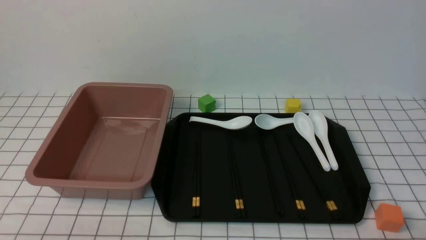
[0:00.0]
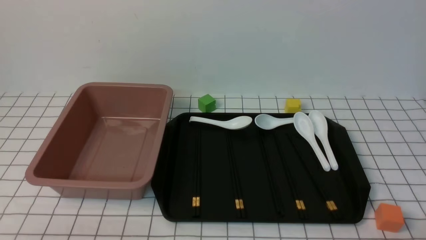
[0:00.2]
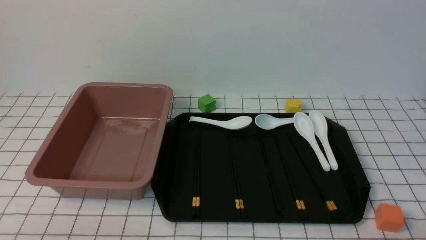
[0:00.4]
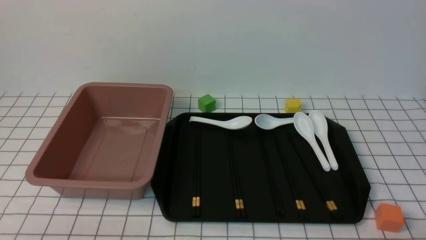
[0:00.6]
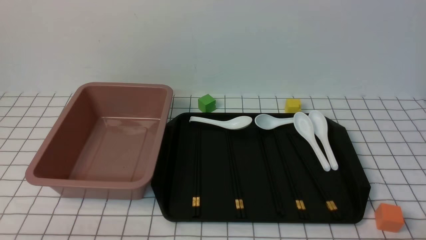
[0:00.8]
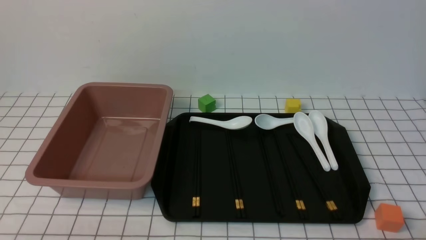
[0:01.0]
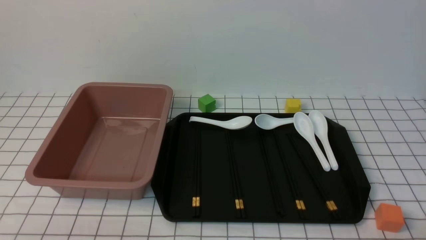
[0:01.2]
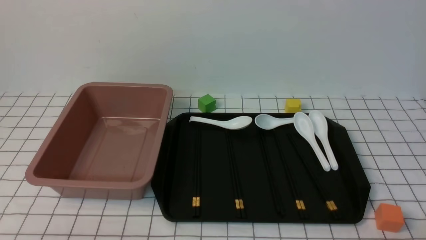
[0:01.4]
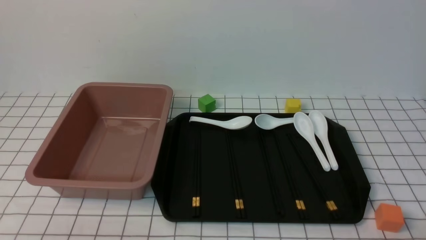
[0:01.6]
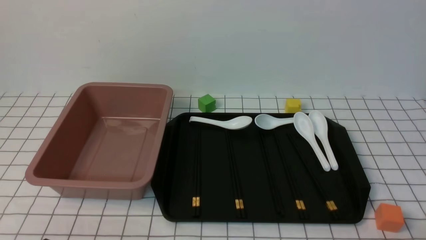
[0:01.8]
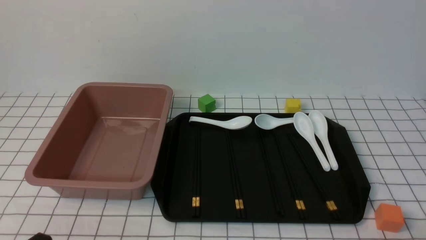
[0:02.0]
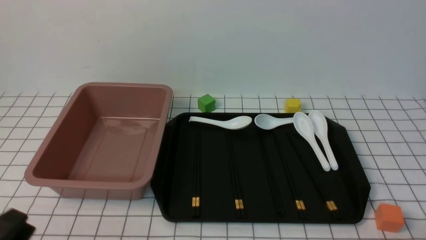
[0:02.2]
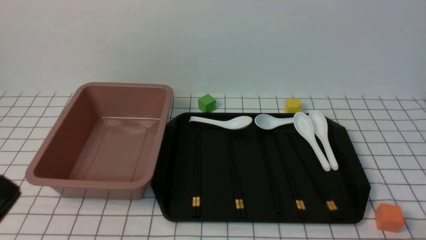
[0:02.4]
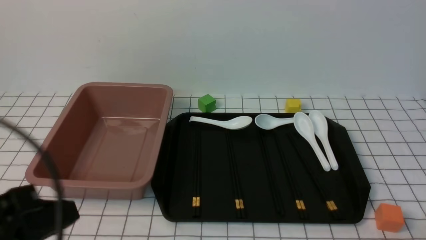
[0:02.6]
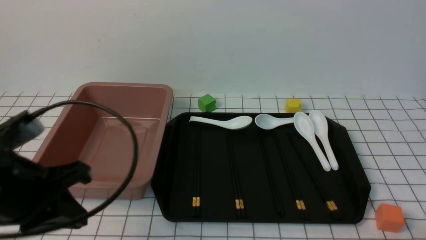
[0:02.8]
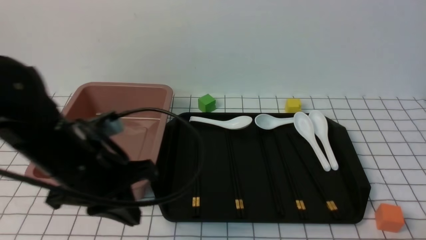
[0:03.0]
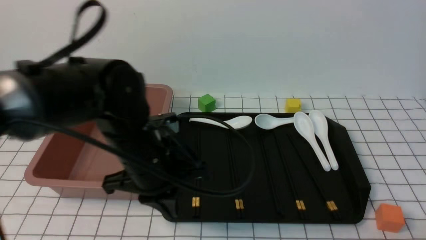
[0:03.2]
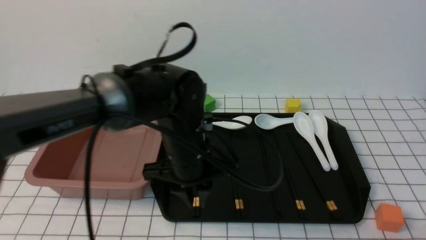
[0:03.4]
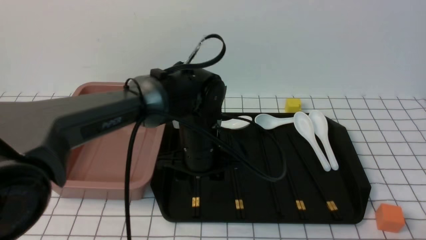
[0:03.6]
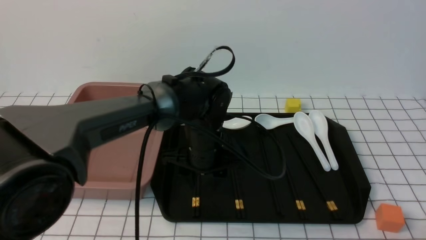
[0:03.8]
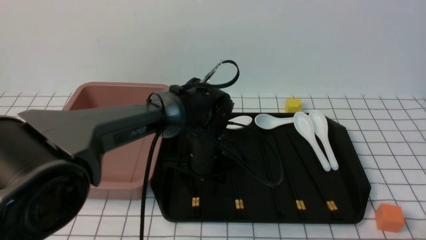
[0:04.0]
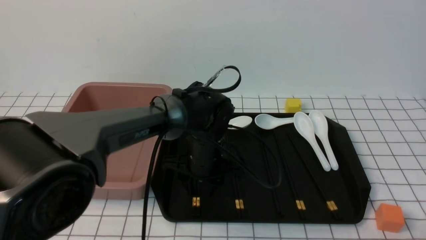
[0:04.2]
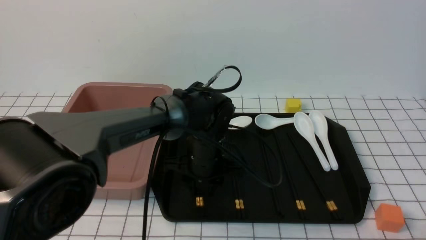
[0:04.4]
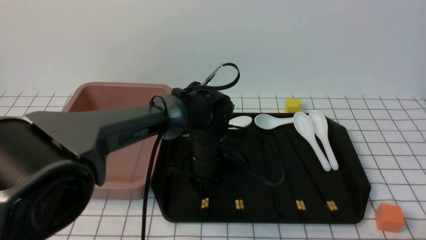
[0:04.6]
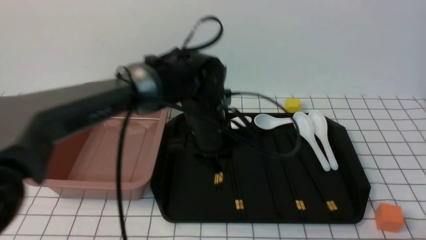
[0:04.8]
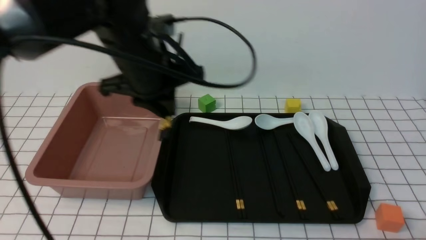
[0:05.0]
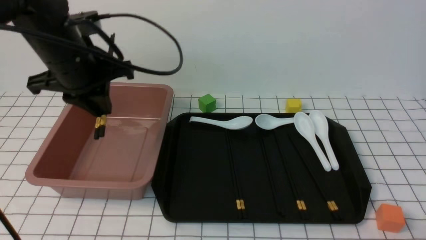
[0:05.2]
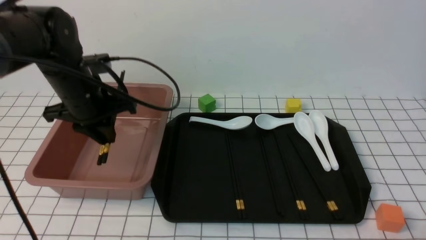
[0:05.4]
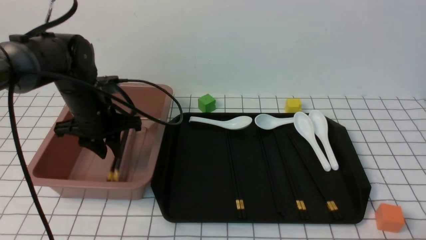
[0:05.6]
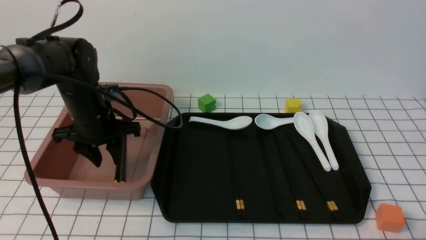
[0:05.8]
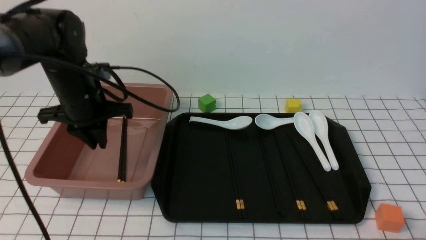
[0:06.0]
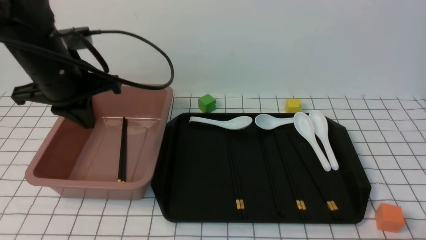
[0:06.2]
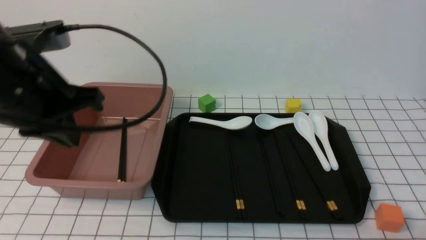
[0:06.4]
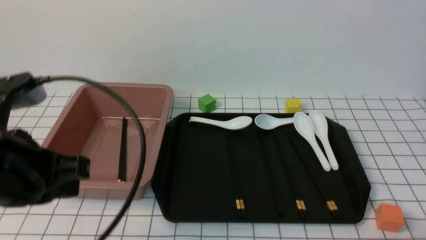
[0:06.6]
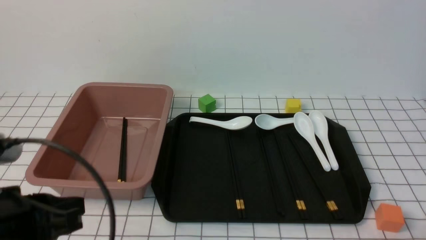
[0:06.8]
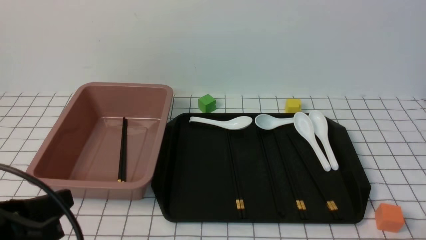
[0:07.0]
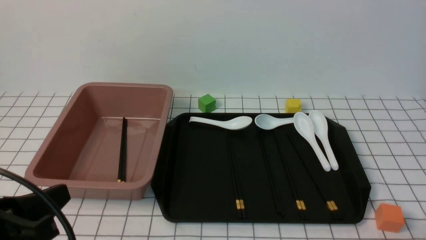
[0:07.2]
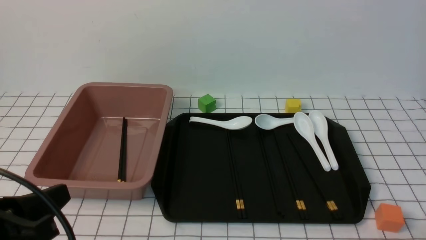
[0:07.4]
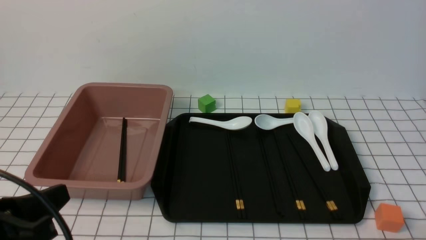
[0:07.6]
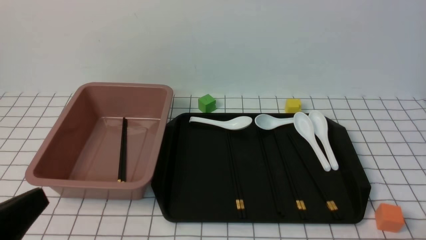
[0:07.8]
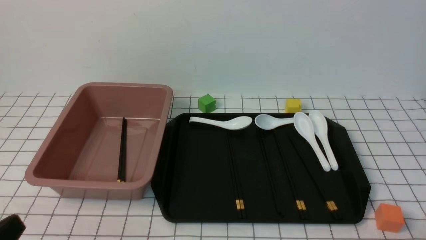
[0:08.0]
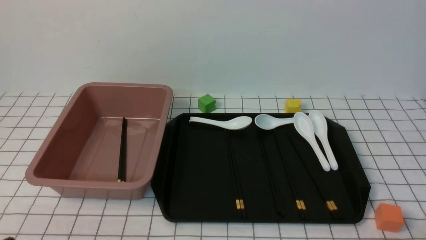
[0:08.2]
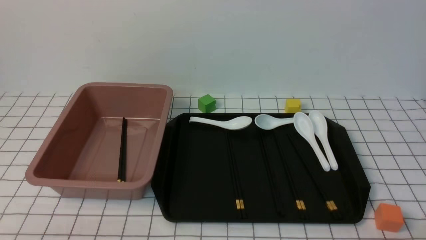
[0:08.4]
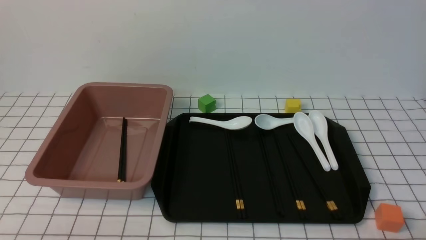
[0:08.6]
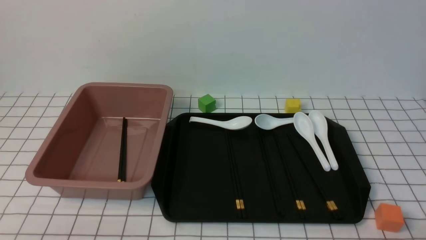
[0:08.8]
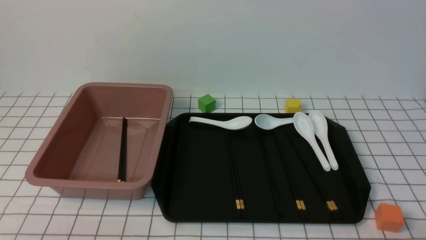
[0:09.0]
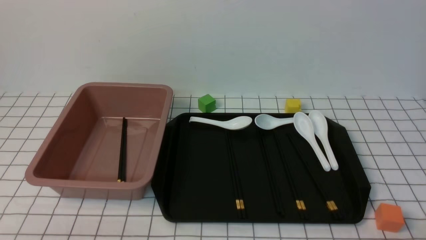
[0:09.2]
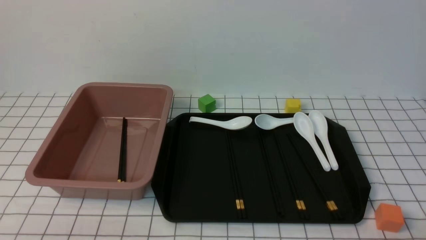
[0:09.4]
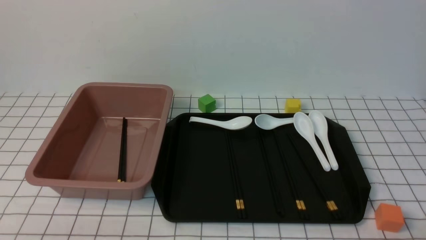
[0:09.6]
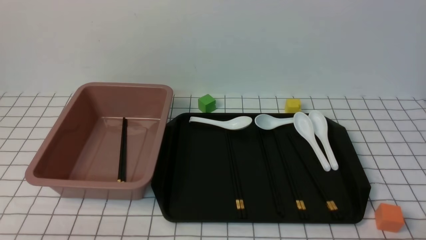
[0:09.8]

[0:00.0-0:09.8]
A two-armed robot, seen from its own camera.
Step, 0.0 to 4.6 s: use the left arm to grab a pair of chopsticks.
Step, 4.8 to 6.0 s: use the left arm to put the chopsticks into the lunch box.
1.4 to 2.8 s: The left gripper is displaced upward and forward by approximately 15 cm, and closes up.
2.8 to 4.2 s: The left gripper moves forward, to the right and downward, some 35 cm, and opens its fingers.
4.2 to 5.6 s: The left gripper shifts some 20 cm to the left and upward, and closes up.
5.6 to 7.0 s: The left gripper goes about 25 cm backward, and closes its fingers.
7.0 to 8.4 s: The left gripper shifts about 10 cm downward and backward.
8.4 to 9.8 s: The two grippers keep their place.

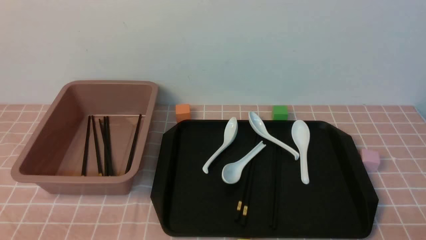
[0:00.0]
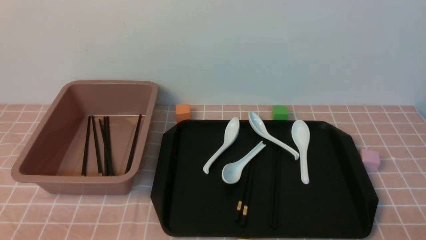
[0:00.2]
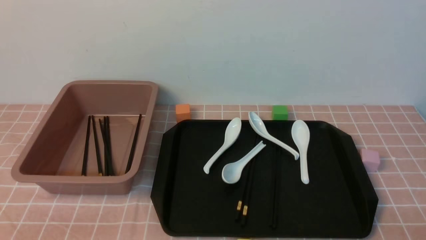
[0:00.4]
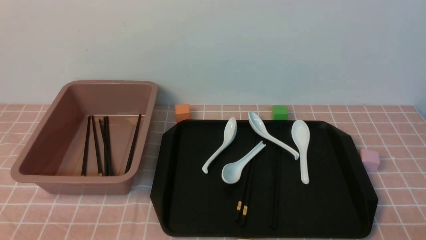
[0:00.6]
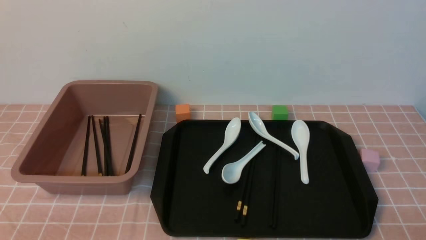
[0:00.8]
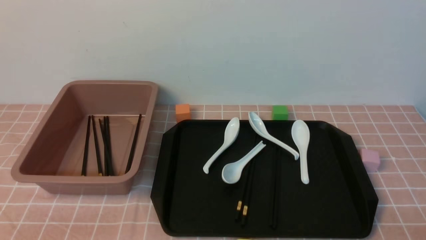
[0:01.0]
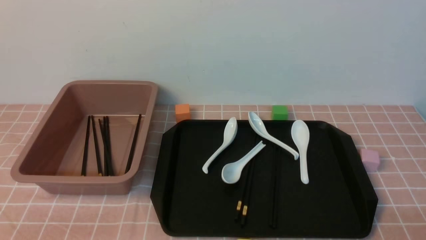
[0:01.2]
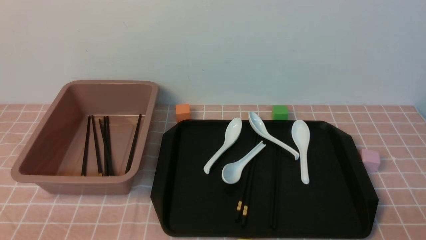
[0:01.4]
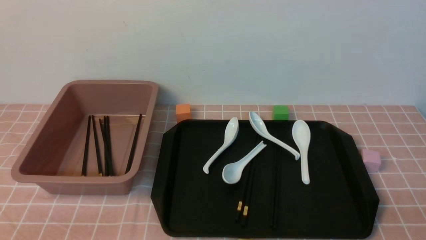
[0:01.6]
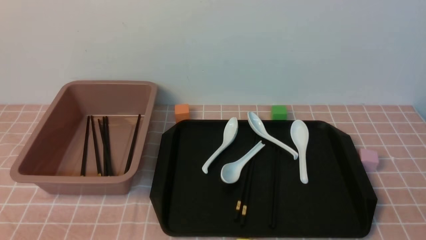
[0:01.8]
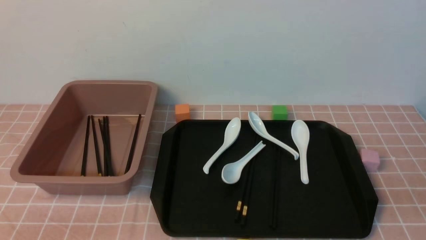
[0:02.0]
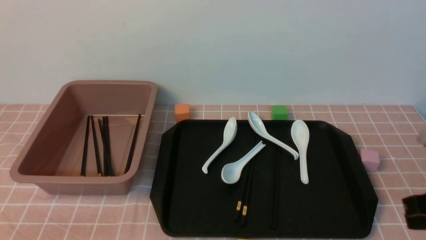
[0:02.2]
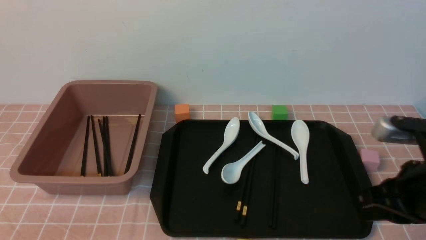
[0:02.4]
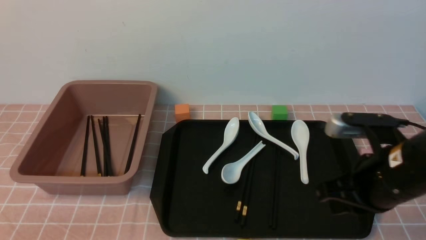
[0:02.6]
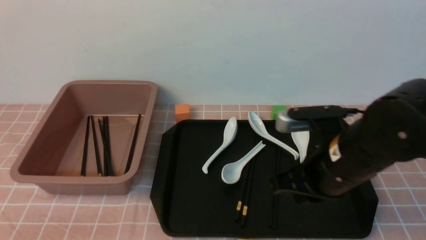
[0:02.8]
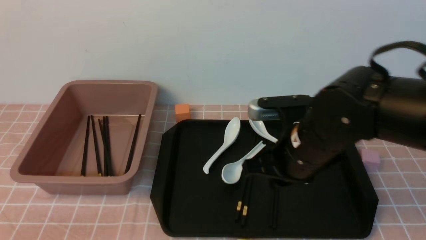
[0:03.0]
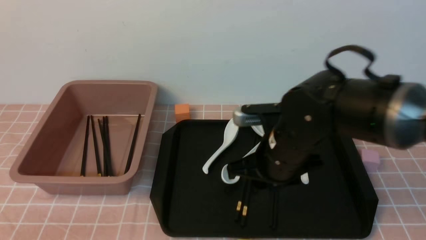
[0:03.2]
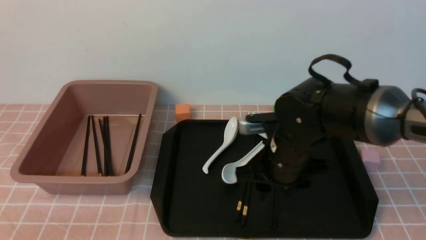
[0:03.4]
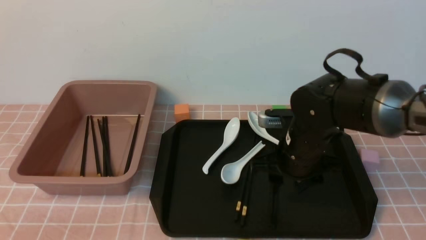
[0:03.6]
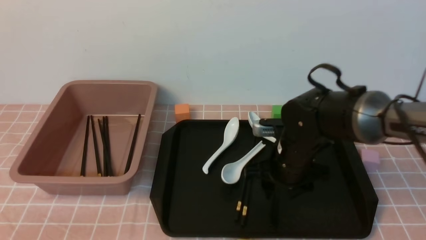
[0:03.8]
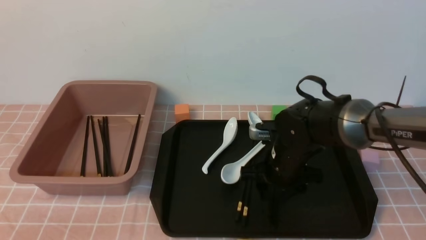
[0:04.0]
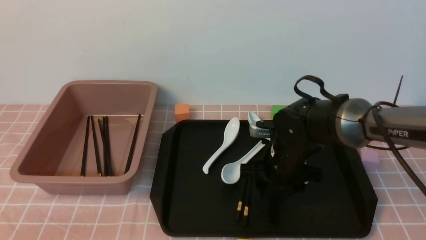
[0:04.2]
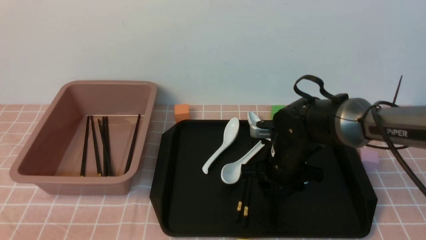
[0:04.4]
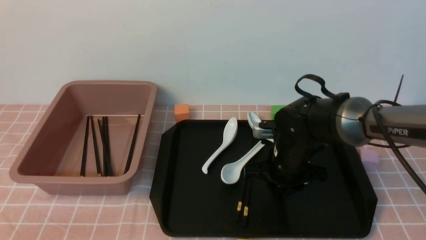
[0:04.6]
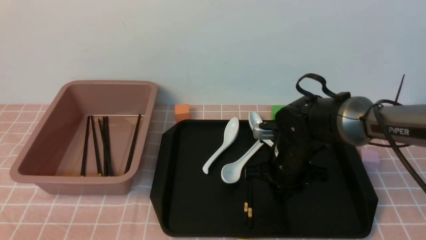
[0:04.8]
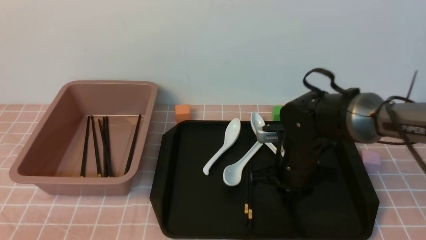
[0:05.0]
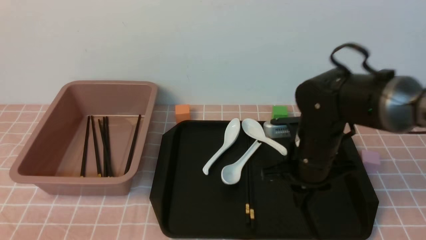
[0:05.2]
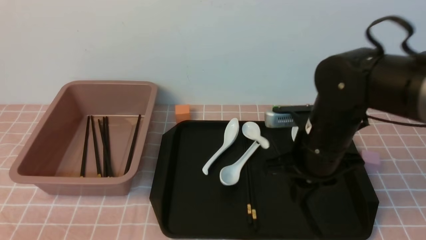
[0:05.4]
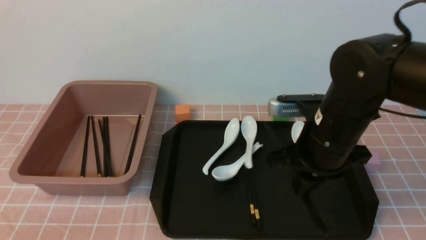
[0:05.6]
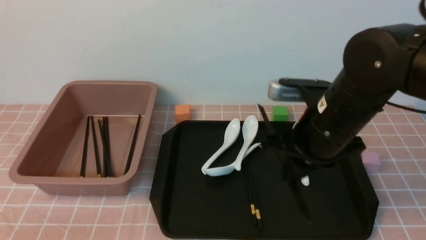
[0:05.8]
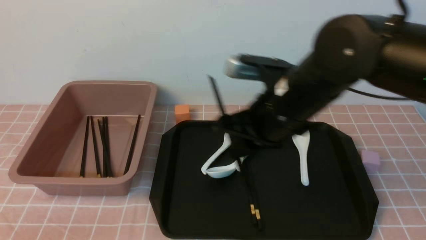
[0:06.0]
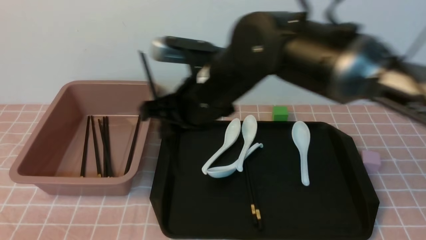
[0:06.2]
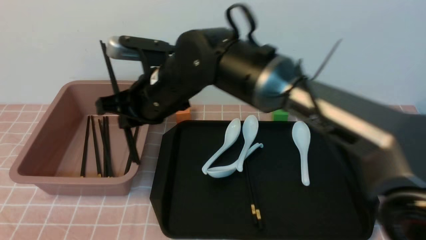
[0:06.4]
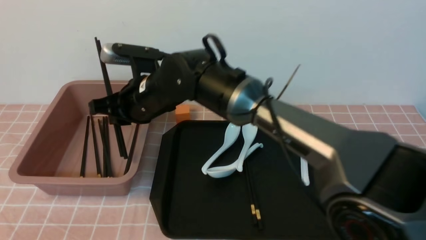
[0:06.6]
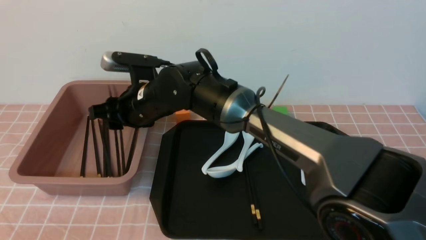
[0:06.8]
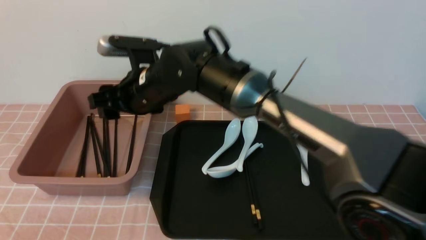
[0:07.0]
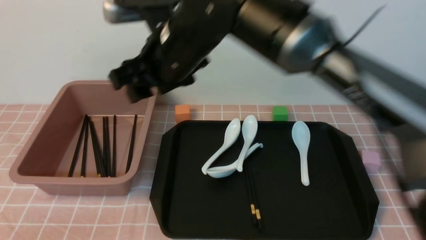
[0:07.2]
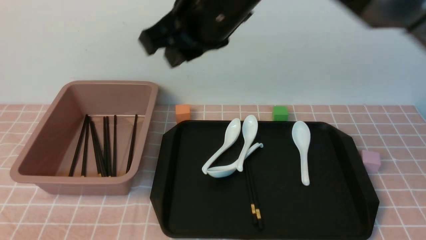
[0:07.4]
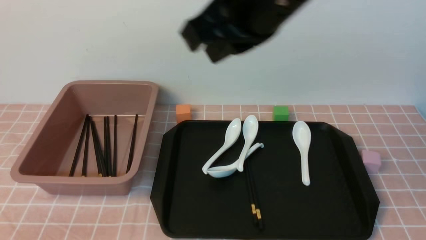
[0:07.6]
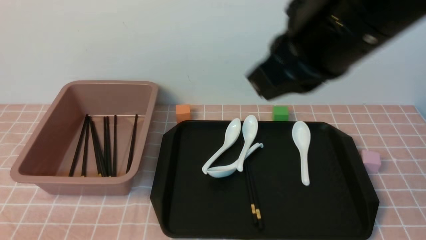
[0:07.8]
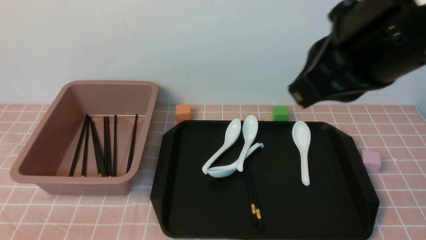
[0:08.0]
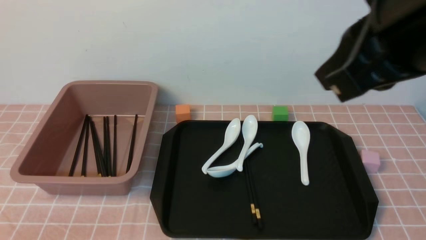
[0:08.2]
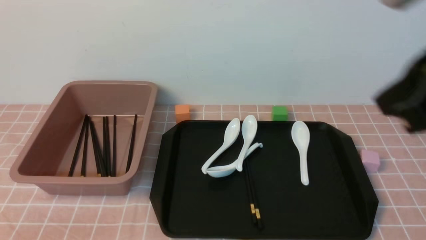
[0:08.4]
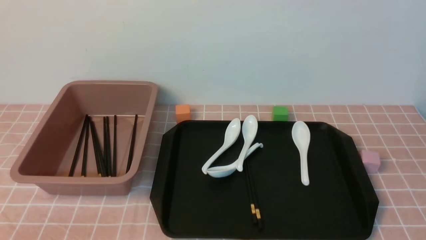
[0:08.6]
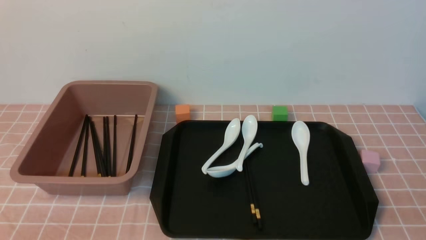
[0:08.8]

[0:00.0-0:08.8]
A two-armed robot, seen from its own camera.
Step, 0.0 to 5.4 s: use the right arm to grab a pair of chopsticks.
Step, 5.6 to 7.2 s: use the right arm to put the chopsticks into the lunch box.
1.4 to 3.0 s: The right gripper shifts about 30 cm forward and to the left.
3.0 to 4.4 s: The right gripper travels downward and forward by approximately 15 cm.
4.4 to 5.8 s: The right gripper travels upward and backward by roughly 15 cm, and closes its fingers.
5.8 to 7.4 s: The right gripper shifts approximately 15 cm upward and to the left, and opens, then closes once more.
7.4 to 8.8 s: The right gripper heads to the right, backward and downward, covering approximately 40 cm, and closes its fingers.
